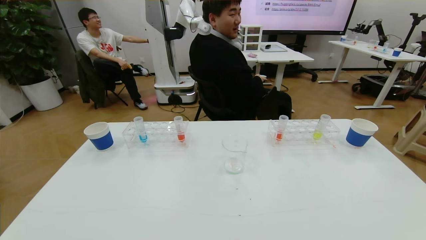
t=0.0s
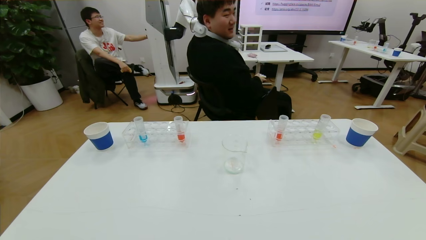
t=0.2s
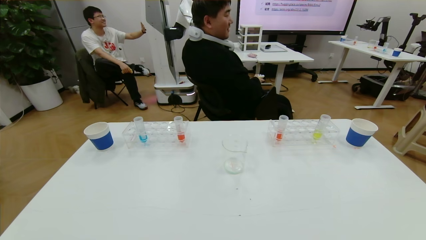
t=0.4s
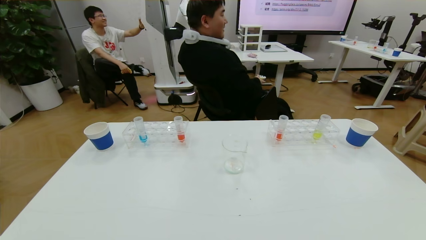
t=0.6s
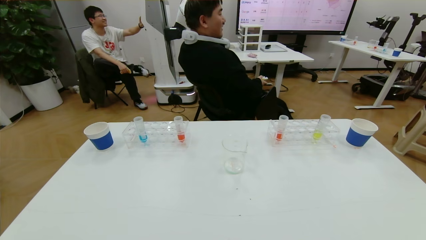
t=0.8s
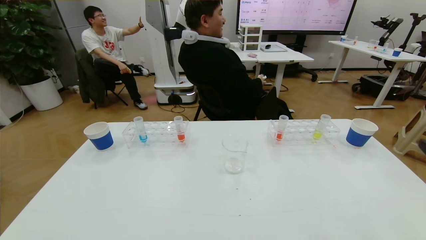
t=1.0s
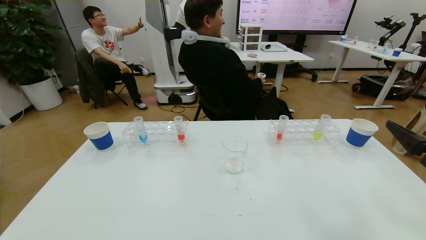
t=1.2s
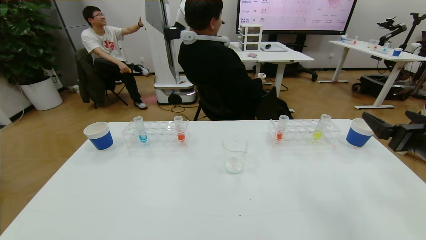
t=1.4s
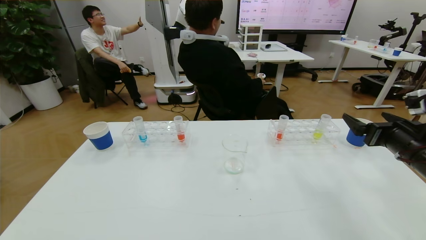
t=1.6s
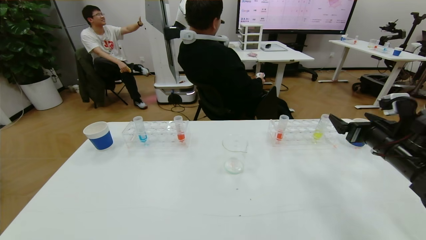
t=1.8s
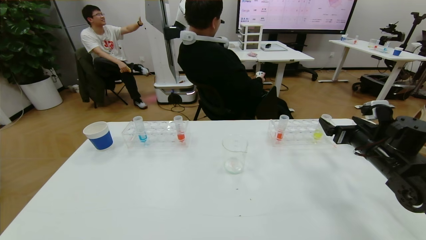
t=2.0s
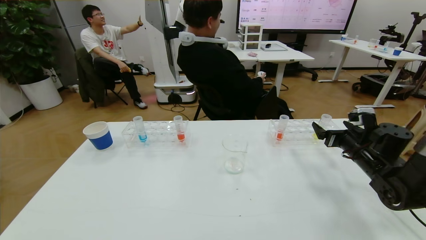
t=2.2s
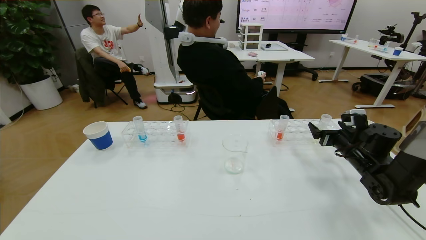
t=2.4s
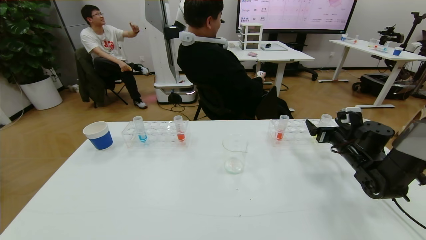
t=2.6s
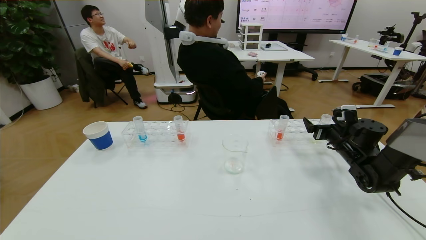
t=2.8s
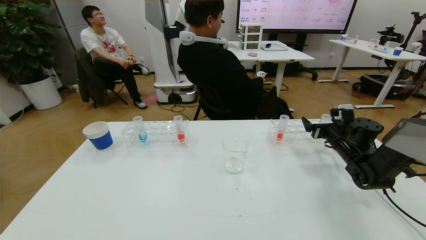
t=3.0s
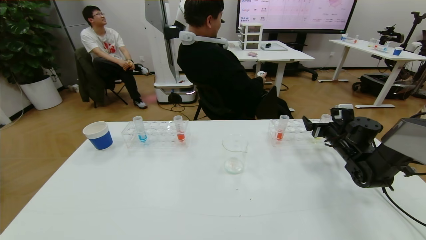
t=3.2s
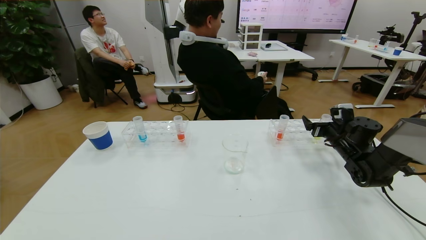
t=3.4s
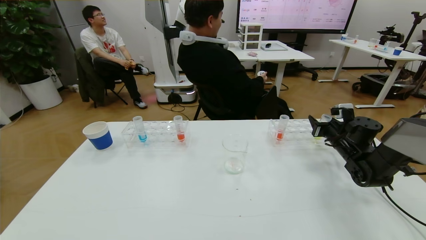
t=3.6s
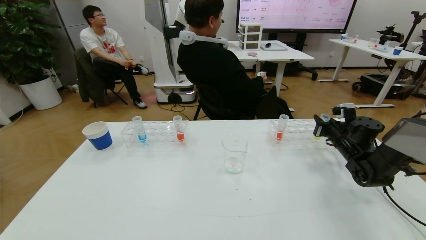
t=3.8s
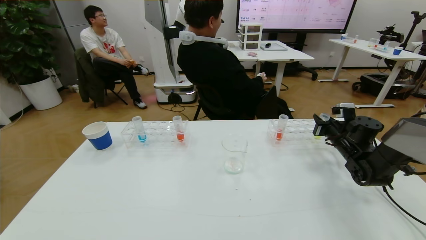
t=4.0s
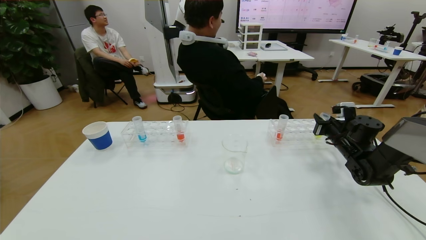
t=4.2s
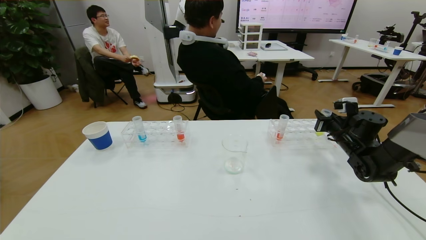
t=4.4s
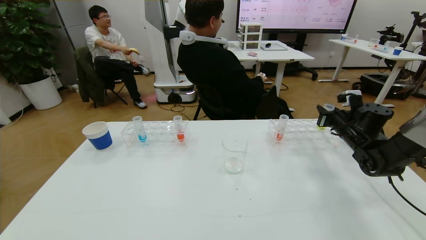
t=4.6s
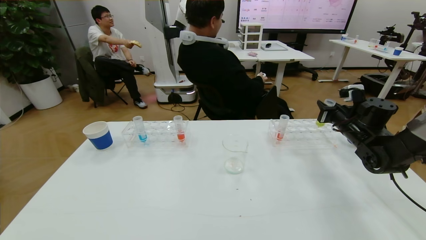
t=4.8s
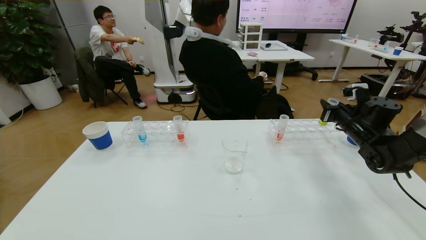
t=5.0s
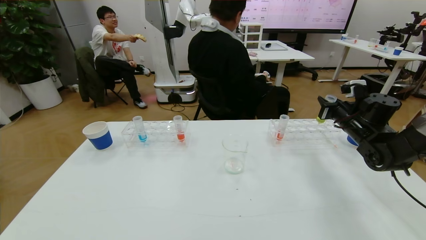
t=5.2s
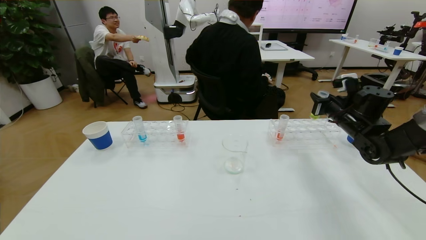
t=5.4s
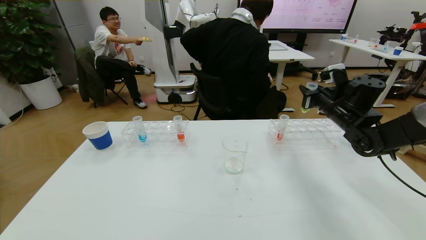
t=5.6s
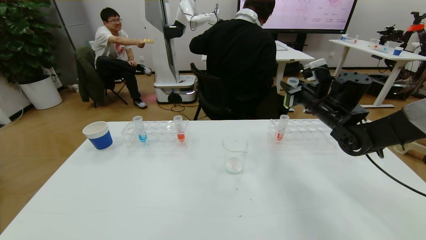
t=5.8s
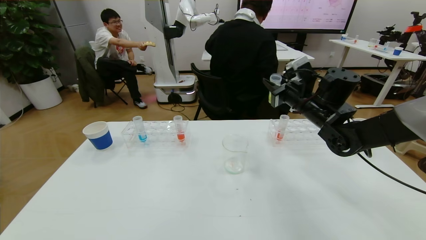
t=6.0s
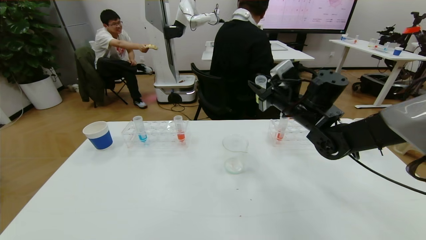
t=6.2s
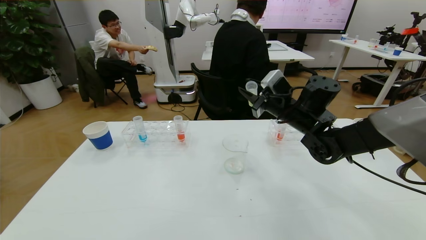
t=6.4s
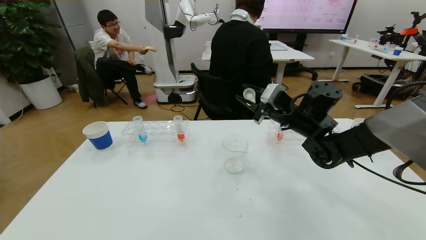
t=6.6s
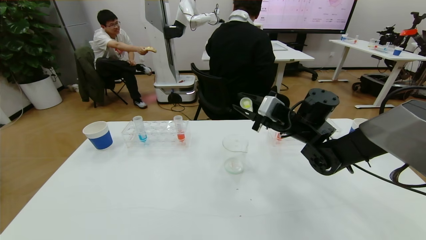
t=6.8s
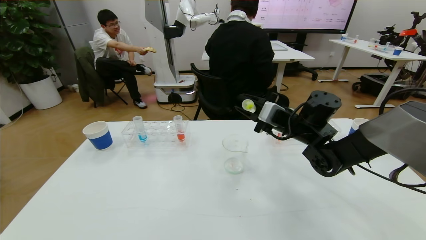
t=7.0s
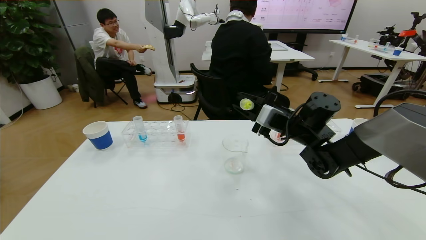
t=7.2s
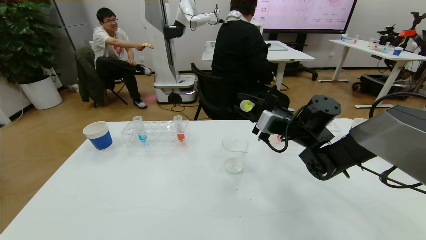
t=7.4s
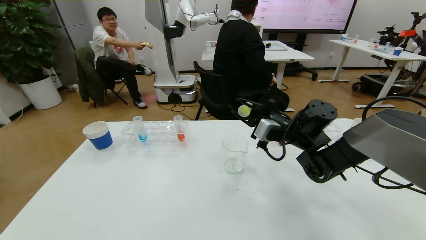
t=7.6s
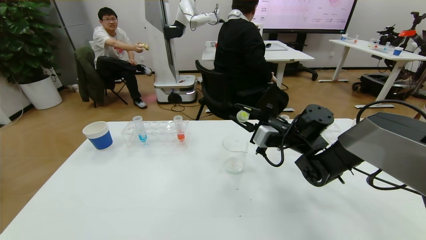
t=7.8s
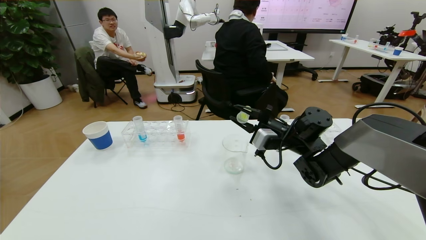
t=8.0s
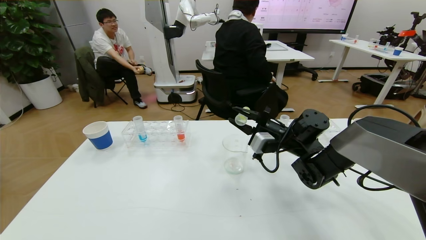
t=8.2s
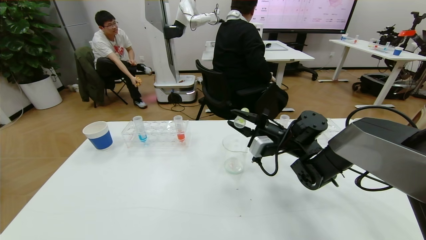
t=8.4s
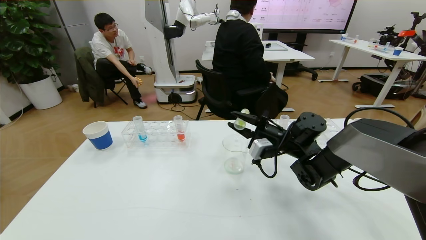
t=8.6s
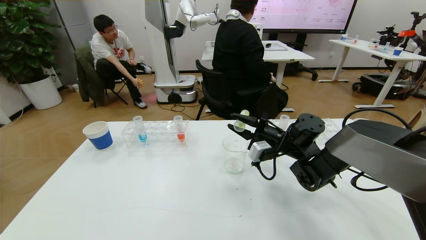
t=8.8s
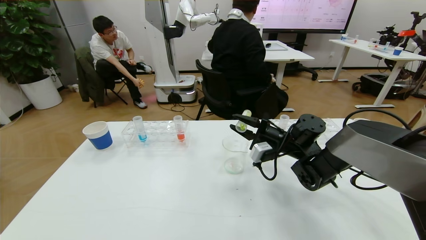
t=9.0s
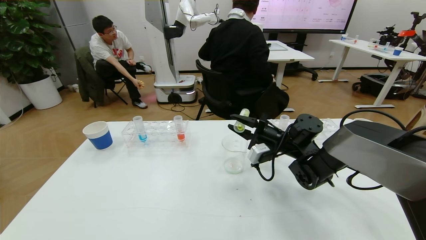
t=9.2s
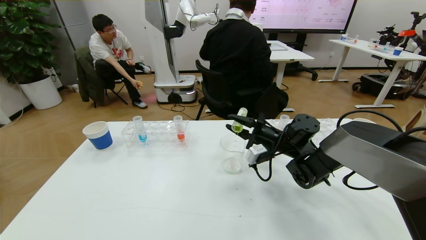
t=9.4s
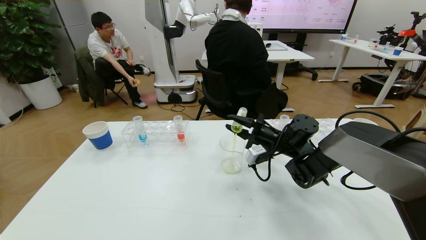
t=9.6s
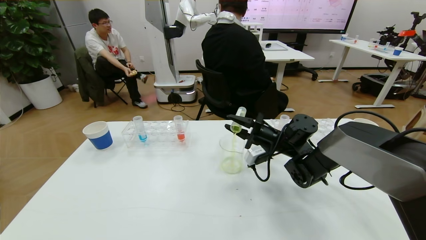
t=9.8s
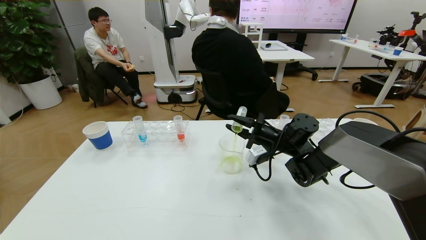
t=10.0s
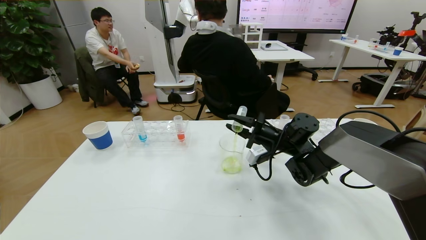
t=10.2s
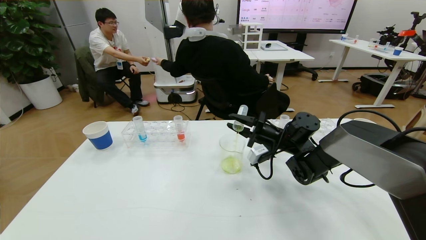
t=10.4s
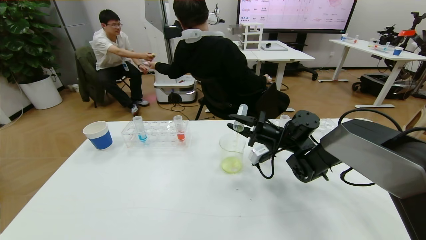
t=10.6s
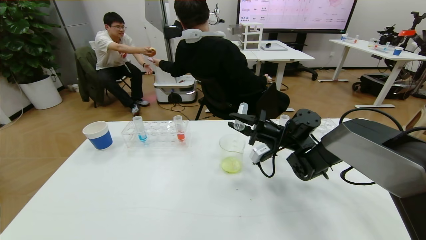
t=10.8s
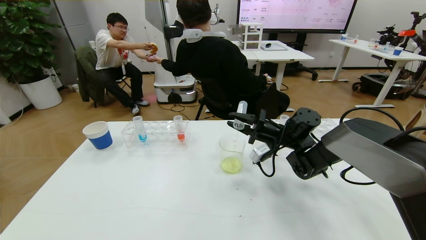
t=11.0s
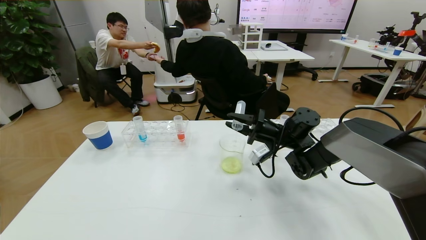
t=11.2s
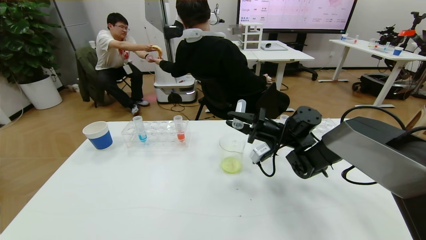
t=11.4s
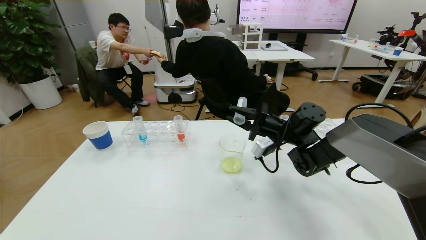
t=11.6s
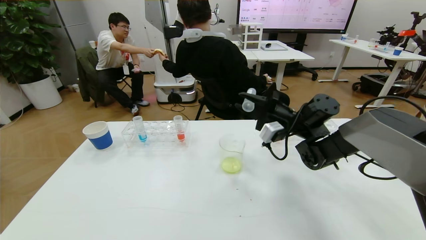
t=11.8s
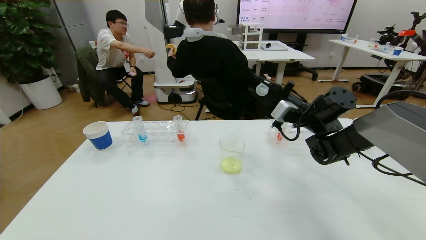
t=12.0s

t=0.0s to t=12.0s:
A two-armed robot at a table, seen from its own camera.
Task of the whole recording: pick up the test tube with yellow pigment and the test tube with blue pigment by grippers and pour them into the beaker.
t=0.0s to t=1.6s: The right gripper is displaced forward by about 30 cm.
t=1.6s to t=3.0s: The right gripper heads forward and downward, covering approximately 20 cm.
t=3.0s to t=4.4s: The right gripper closes its fingers.
t=4.4s to t=6.0s: The right gripper moves to the left and upward, about 20 cm.
t=6.0s to t=7.6s: The right gripper is displaced downward by some 5 cm.
t=7.6s to t=9.0s: The grippers move only a little.
t=9.0s to t=10.4s: The grippers stay close to where they were, moving slightly.
t=10.4s to t=12.0s: The right gripper shifts about 10 cm upward and to the right.

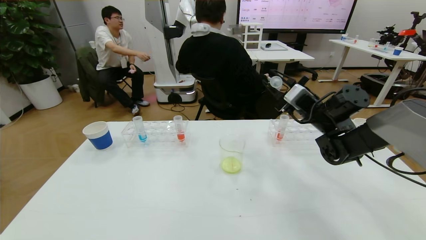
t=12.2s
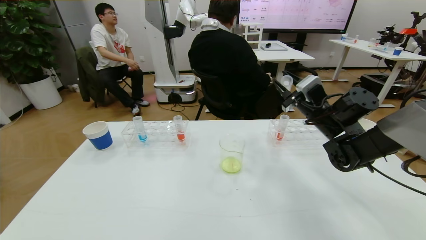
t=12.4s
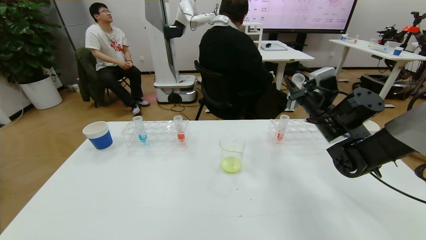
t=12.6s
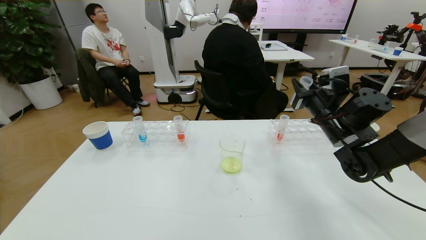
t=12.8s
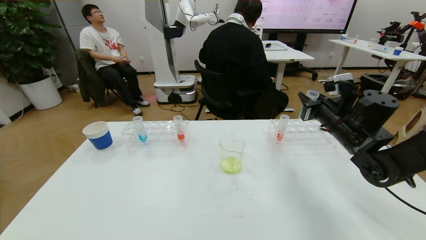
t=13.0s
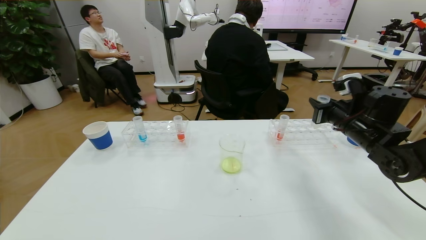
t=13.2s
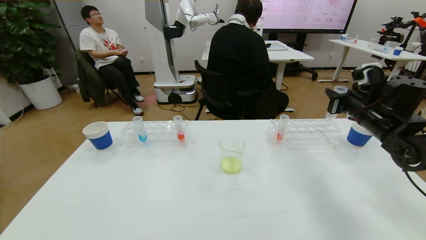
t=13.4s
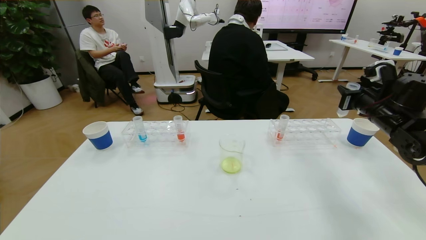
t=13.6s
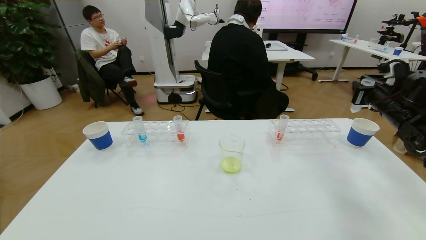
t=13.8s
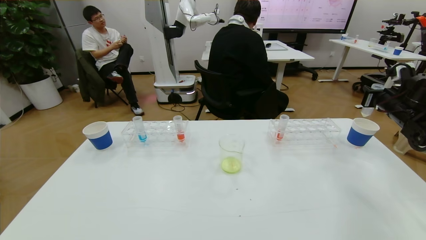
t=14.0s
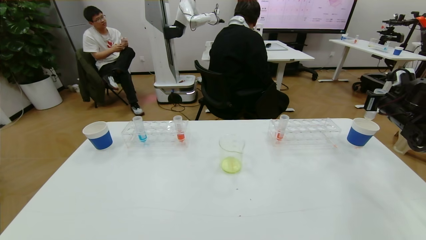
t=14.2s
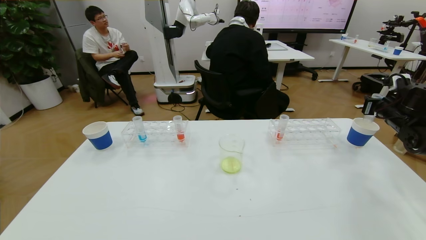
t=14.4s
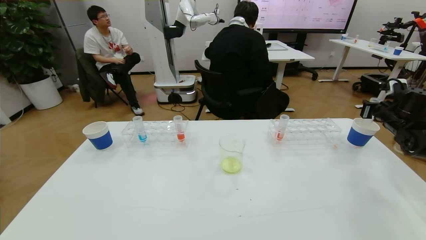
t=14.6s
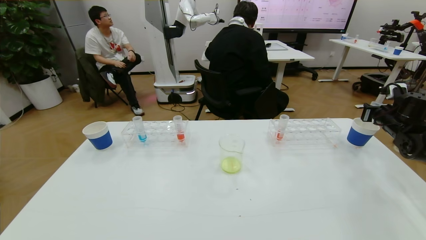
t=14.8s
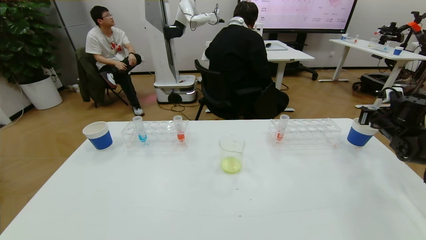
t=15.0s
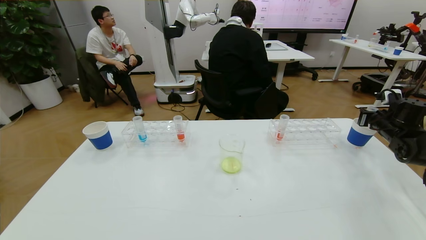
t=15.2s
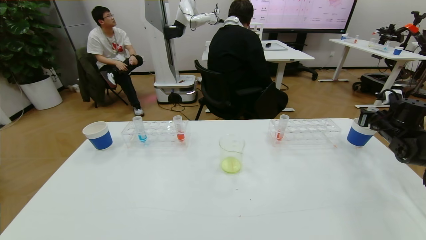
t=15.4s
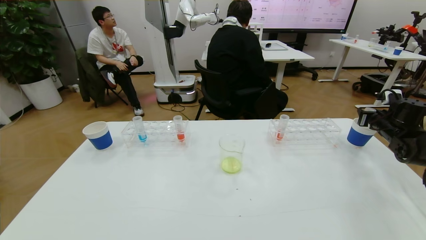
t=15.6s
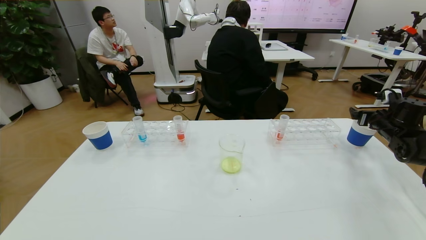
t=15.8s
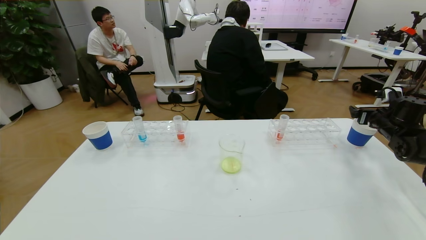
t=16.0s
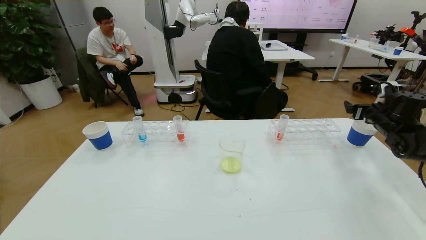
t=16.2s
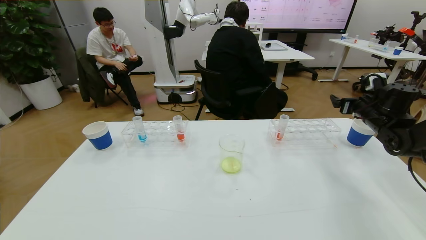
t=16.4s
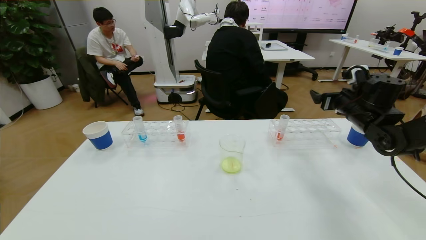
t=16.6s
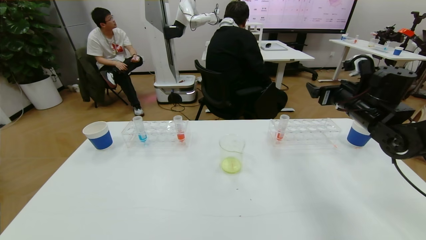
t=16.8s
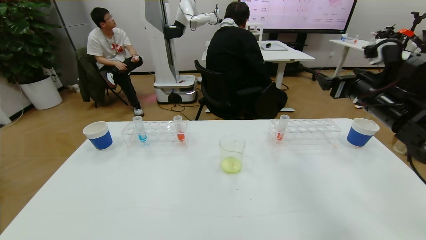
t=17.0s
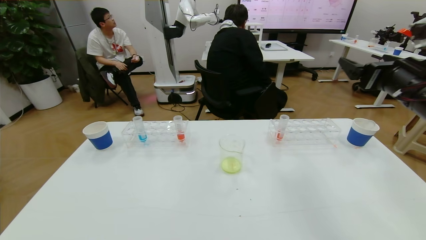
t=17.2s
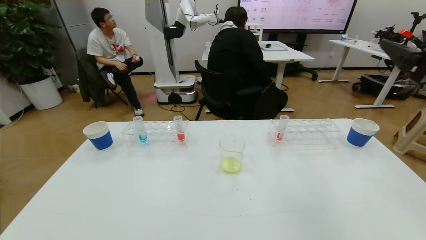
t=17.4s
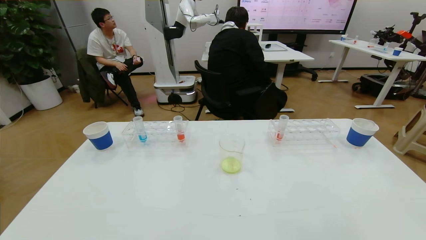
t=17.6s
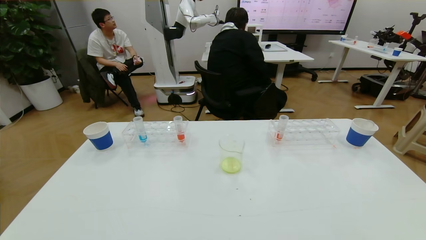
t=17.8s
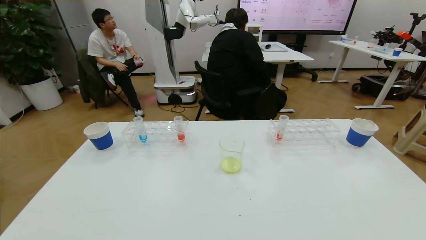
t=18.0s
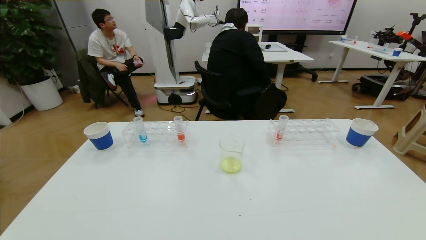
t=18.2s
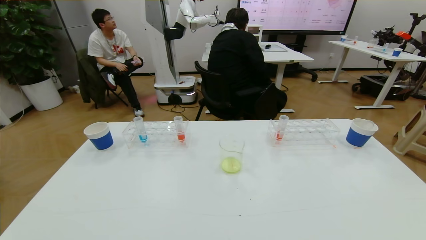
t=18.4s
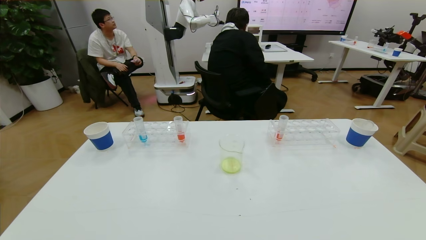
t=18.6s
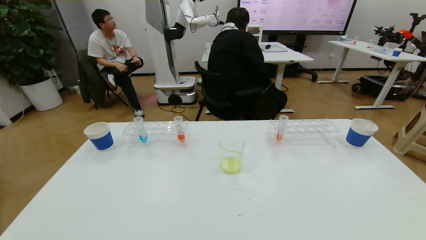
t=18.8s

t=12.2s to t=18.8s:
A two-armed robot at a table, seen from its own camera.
Task of the whole recording: pick up the test tube with yellow pigment and the test tube with blue pigment by grippers and pour them into the beaker.
Step, t=12.2s to t=18.6s: Pour the yellow reagent into the graduated cylinder and place the test tube into the paper cup.
t=12.2s to t=13.8s: The right gripper is displaced to the right by approximately 15 cm.
t=13.8s to t=15.4s: The right gripper shifts approximately 10 cm downward and to the right.
t=15.4s to t=17.2s: The right gripper moves to the left, upward and backward, approximately 30 cm, and opens.
t=17.2s to t=18.8s: The right gripper heads backward, covering about 35 cm.
